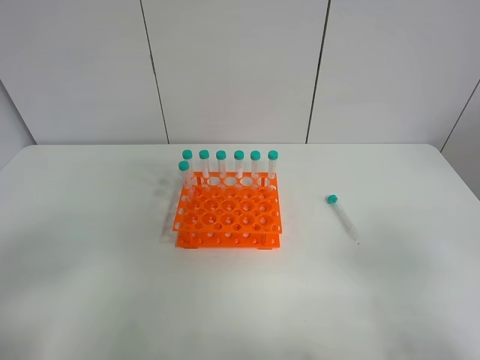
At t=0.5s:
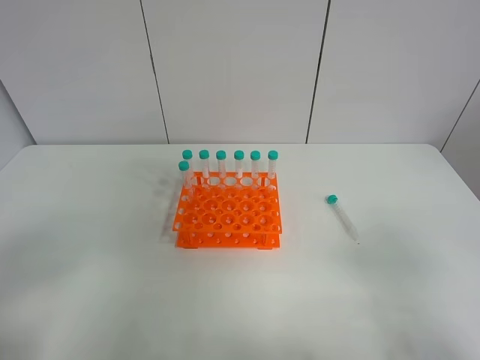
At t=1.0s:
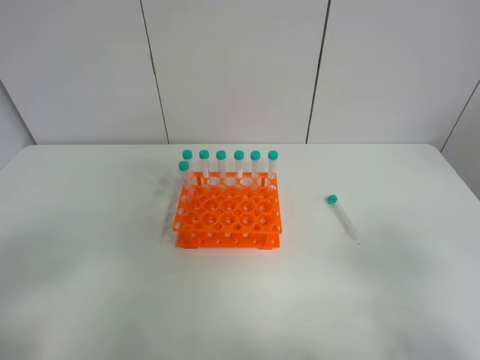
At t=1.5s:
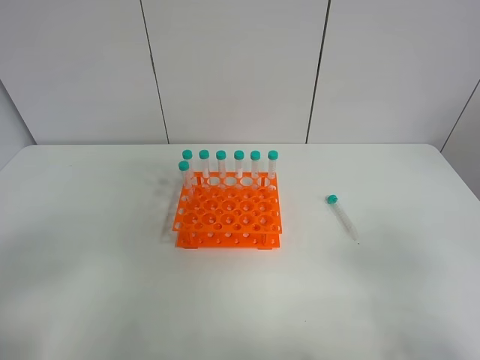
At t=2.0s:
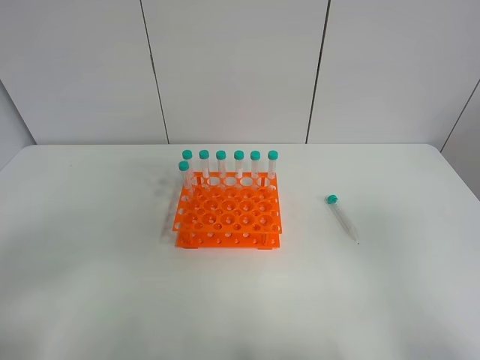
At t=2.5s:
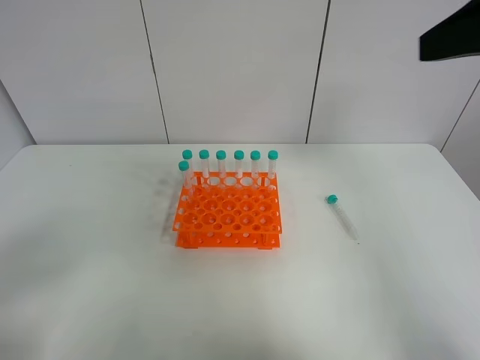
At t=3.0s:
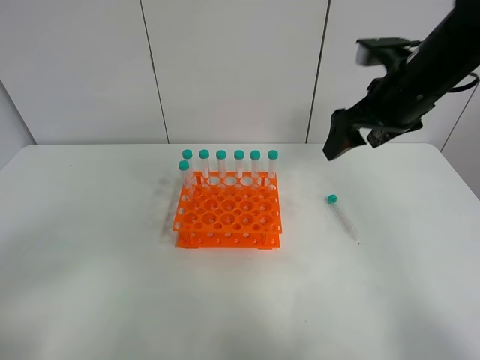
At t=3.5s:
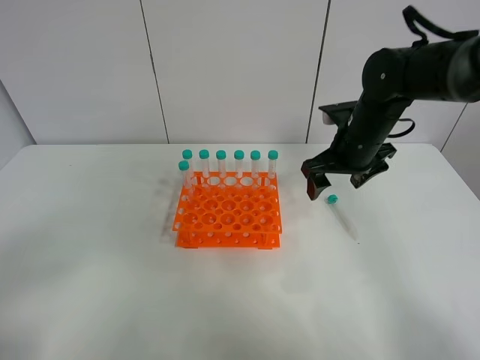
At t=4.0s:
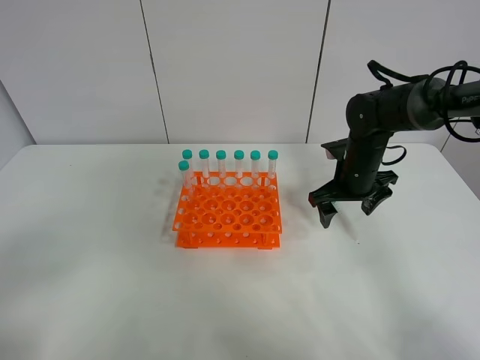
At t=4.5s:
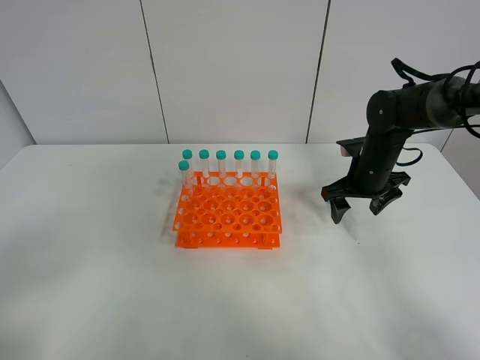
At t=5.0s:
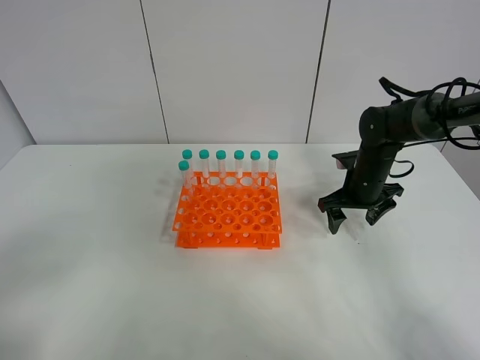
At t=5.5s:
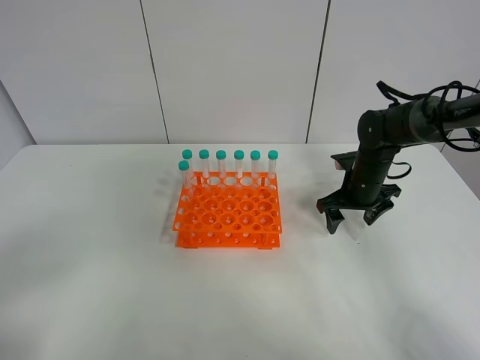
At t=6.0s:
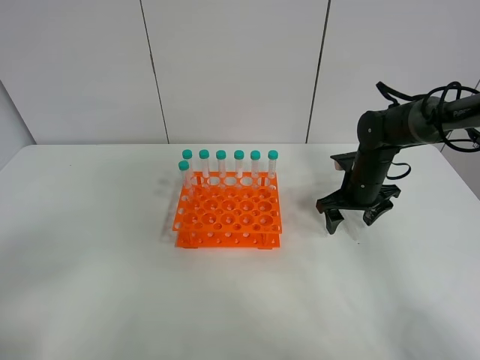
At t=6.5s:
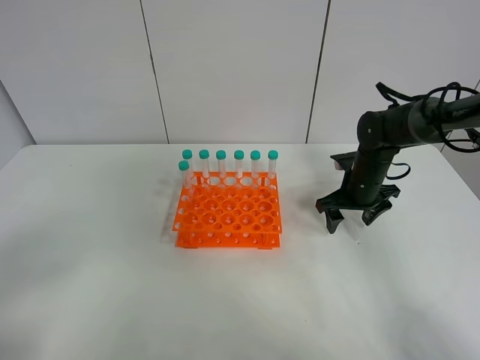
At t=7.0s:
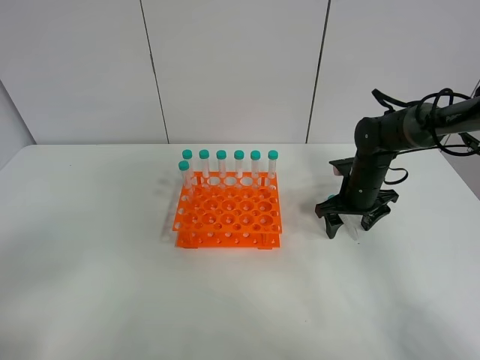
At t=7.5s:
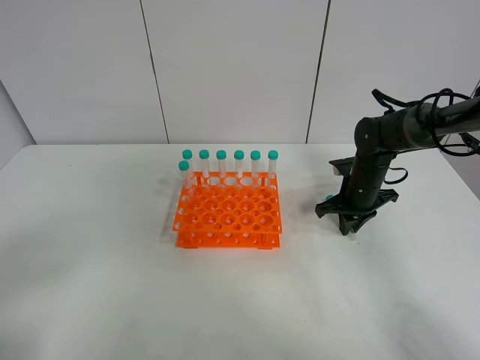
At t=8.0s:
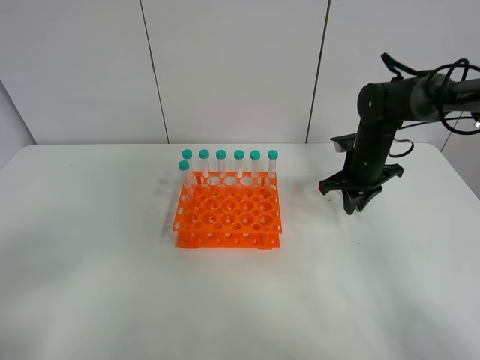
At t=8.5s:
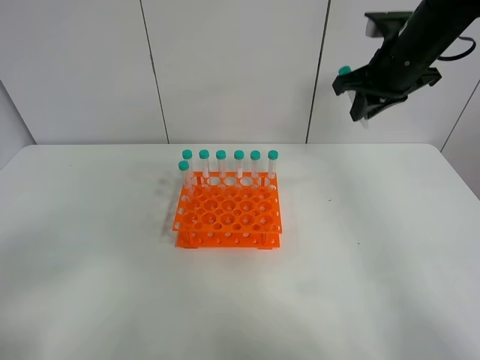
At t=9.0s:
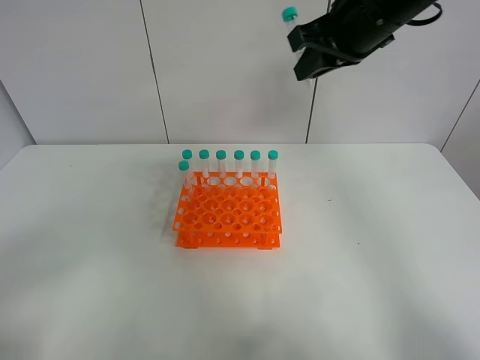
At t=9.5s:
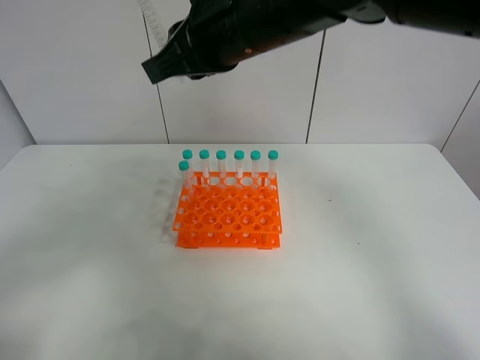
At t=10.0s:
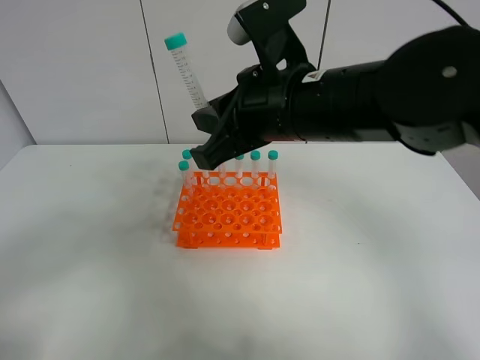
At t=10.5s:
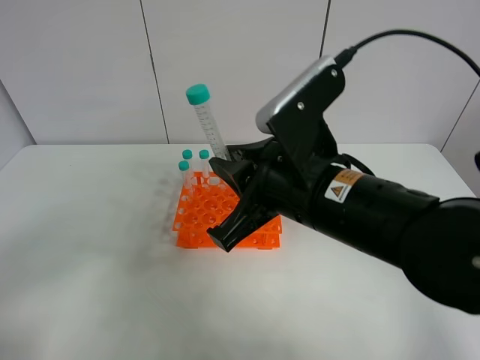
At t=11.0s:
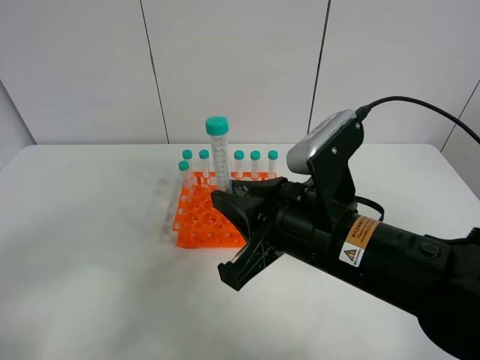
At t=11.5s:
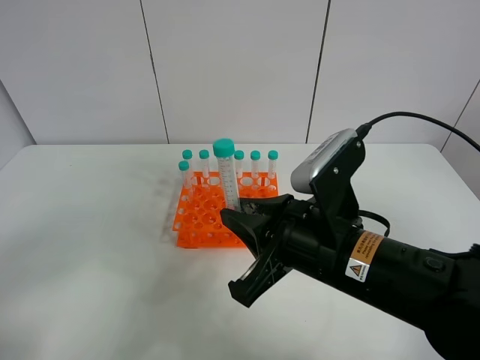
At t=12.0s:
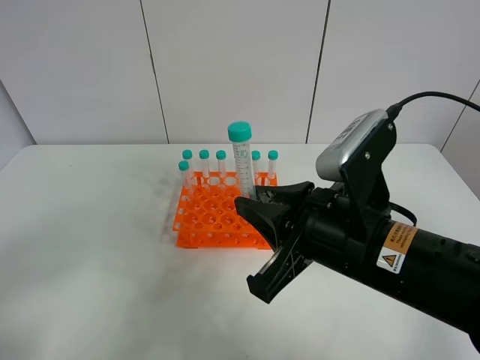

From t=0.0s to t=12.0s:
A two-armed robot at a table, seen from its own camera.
Task of the whole recording: Put the test tube on the table back onto the test tube rack.
Step, from t=0.0s to t=8.0s: Pick up the test tube with the right gripper.
From t=2.0s to t=4.0s: The right gripper shifts approximately 40 cm forward and downward.
From t=4.0s to t=6.0s: The grippers stay close to where they were, moving slightly.
From t=6.0s to t=8.0s: The right gripper shifts about 5 cm upward, and closes.
From t=8.0s to t=10.0s: The right gripper is displaced backward, to the left and upward by approximately 30 cm.
From t=10.0s to t=12.0s: The right gripper shifts approximately 10 cm backward and downward.

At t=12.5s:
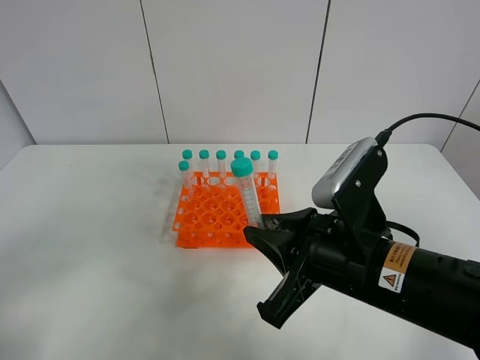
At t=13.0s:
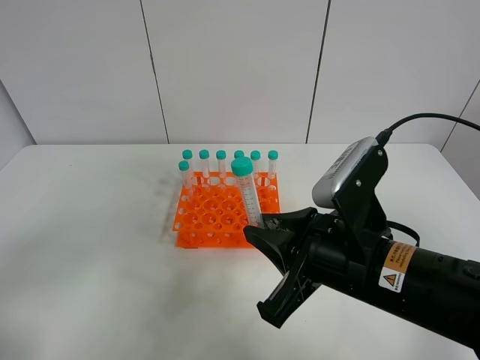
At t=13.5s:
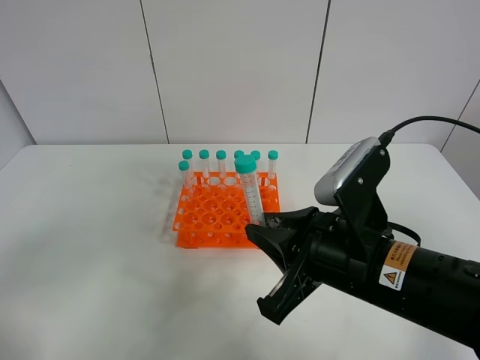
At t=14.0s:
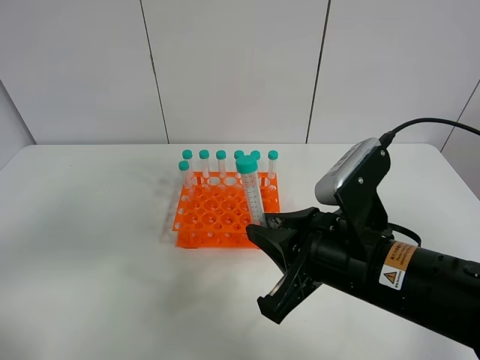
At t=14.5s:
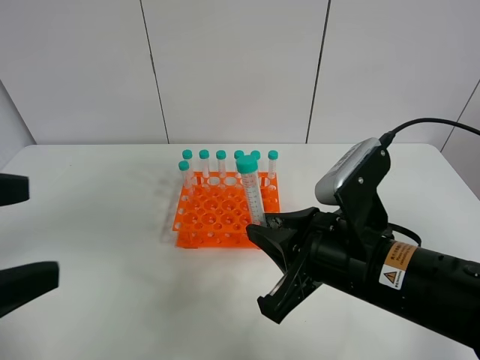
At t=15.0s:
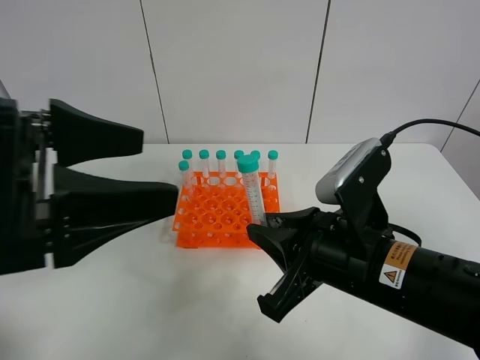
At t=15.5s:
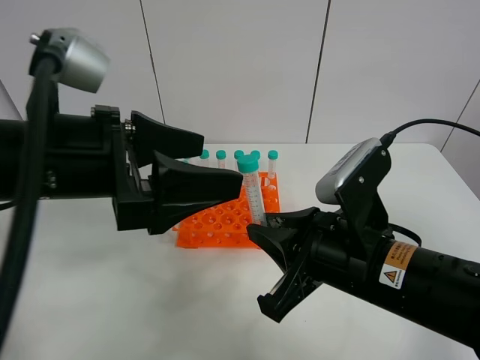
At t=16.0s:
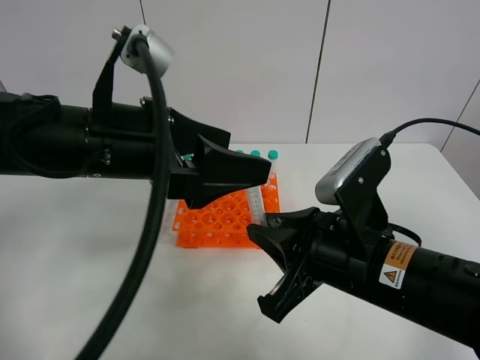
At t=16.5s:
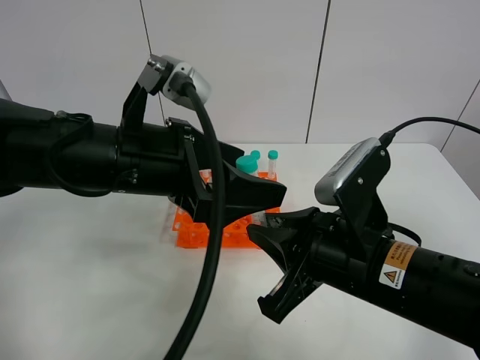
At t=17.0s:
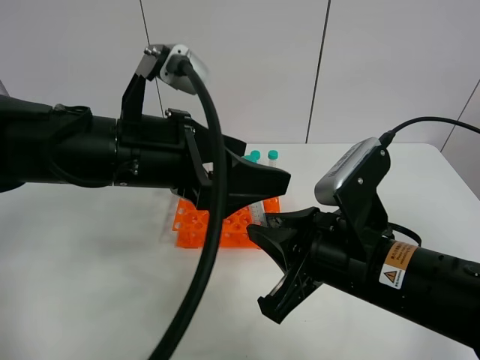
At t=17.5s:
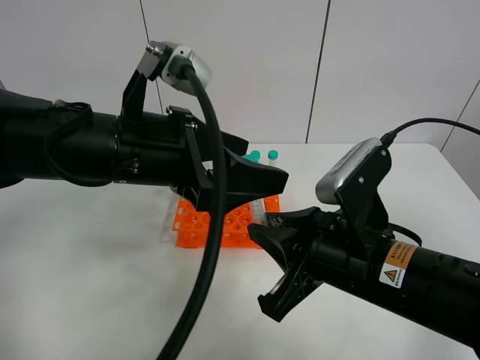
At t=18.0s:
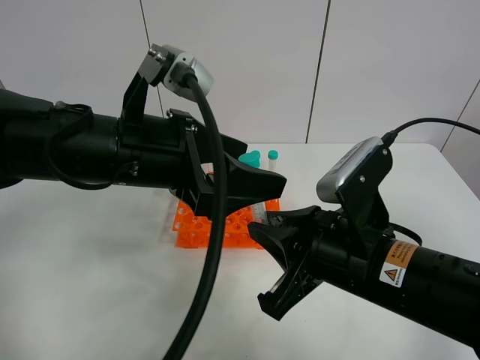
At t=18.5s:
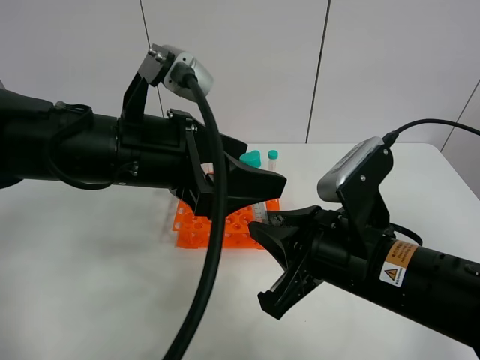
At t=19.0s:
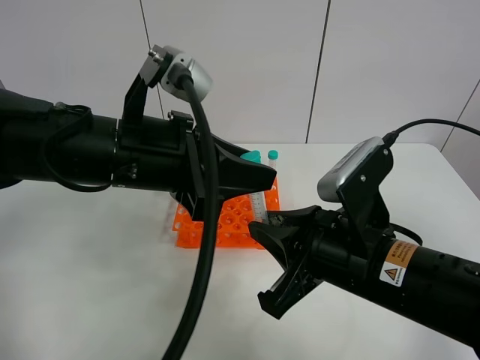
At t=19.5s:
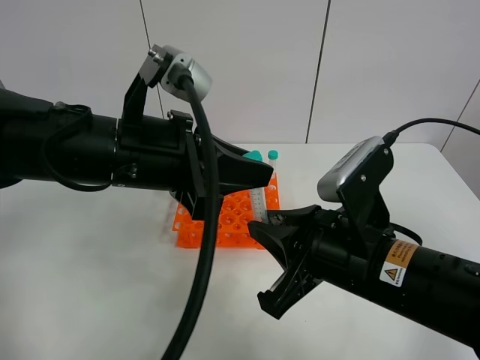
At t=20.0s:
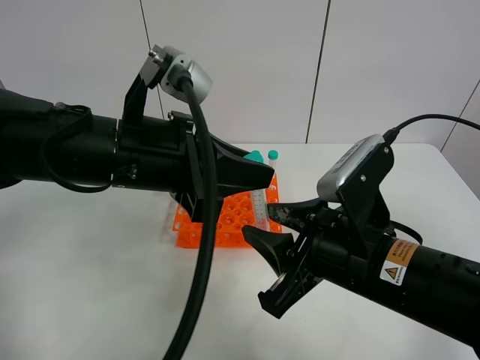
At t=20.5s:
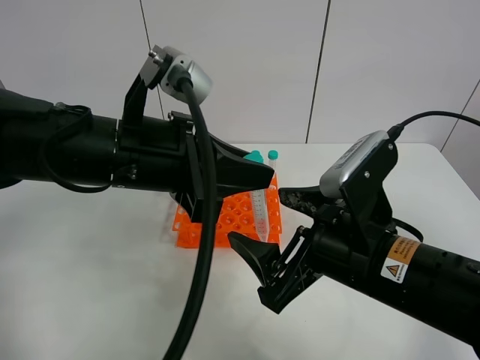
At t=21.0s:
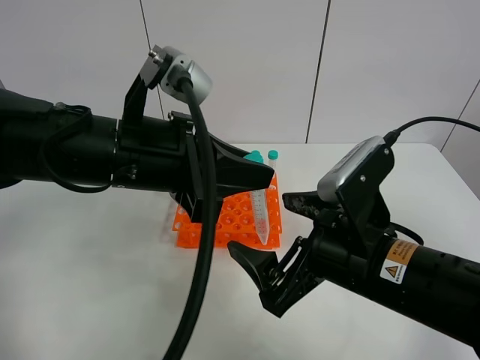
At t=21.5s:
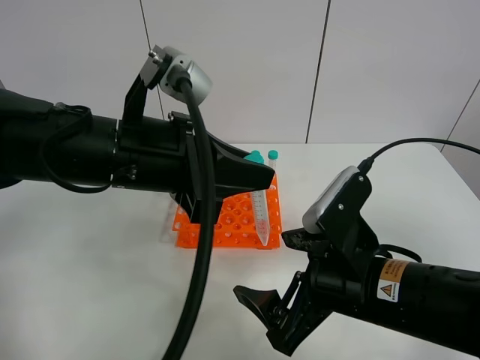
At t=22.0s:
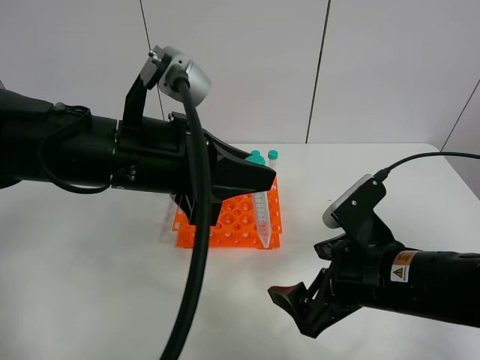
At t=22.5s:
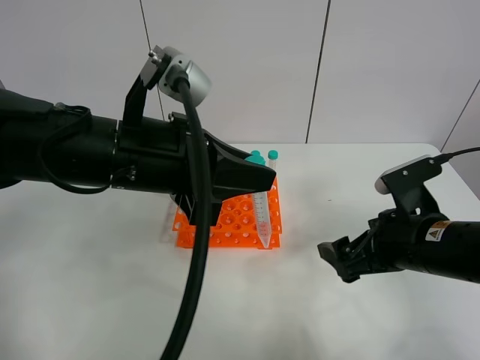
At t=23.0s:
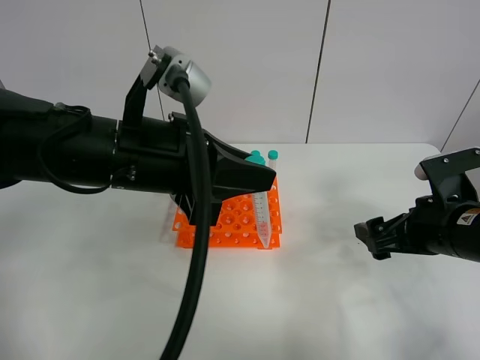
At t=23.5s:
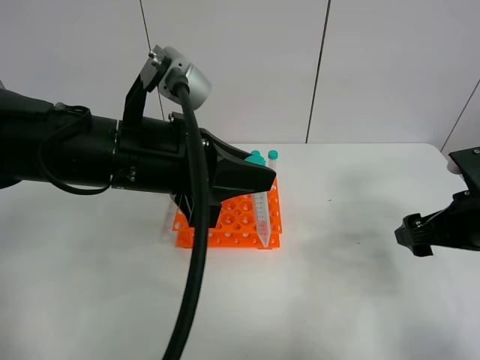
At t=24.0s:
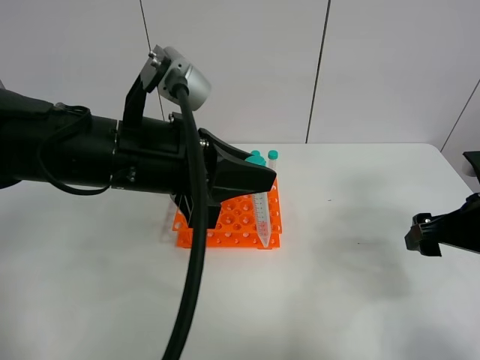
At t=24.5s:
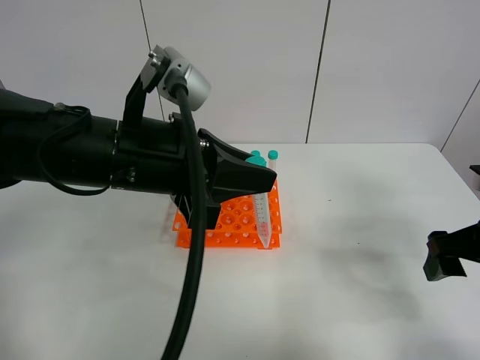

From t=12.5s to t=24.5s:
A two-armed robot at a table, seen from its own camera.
Task of the whole recording: Put the test tube on the table back onto the test tube rack.
Step, from t=12.5s to t=22.0s: Move the test tube from the right gripper to the left gripper.
From t=12.5s to t=14.5s: The left gripper heads forward, to the right and upward, covering approximately 10 cm.
From t=14.5s to t=16.5s: The left gripper moves forward and to the right, approximately 20 cm.
From t=16.5s to t=18.5s: The two grippers keep their place.
From t=18.5s to t=20.5s: The right gripper opens its fingers; the left gripper closes its fingers.
From t=20.5s to t=22.5s: The right gripper moves to the right, approximately 10 cm.
From t=22.5s to t=24.5s: The right gripper travels to the right by about 10 cm.

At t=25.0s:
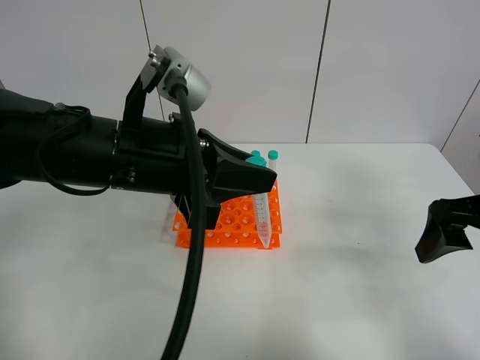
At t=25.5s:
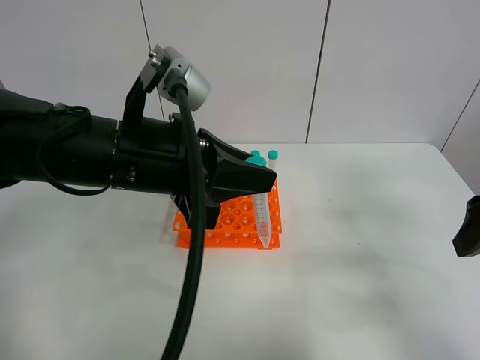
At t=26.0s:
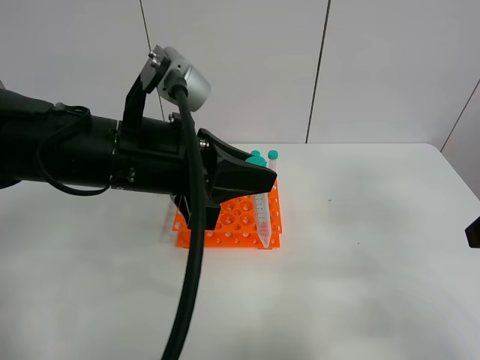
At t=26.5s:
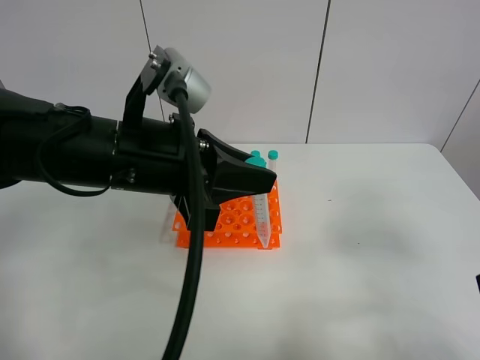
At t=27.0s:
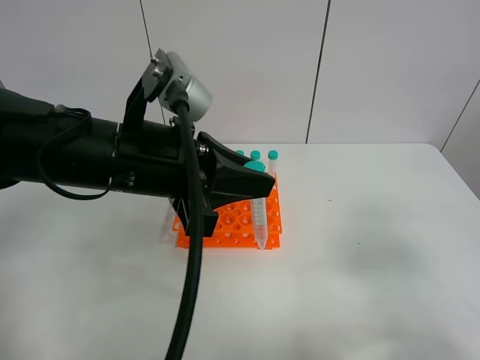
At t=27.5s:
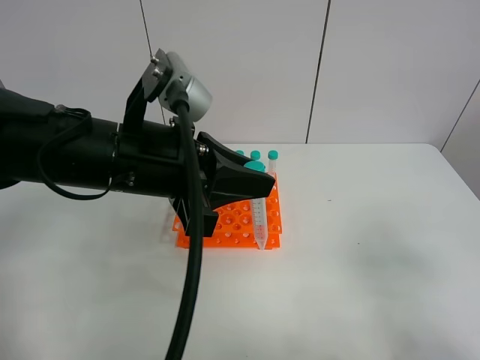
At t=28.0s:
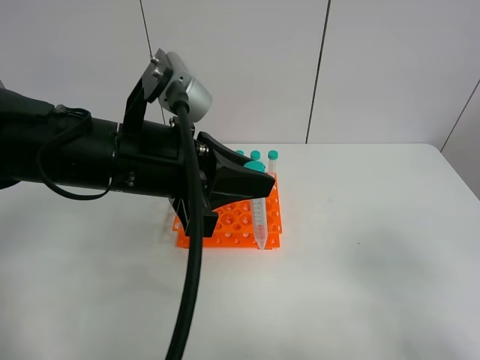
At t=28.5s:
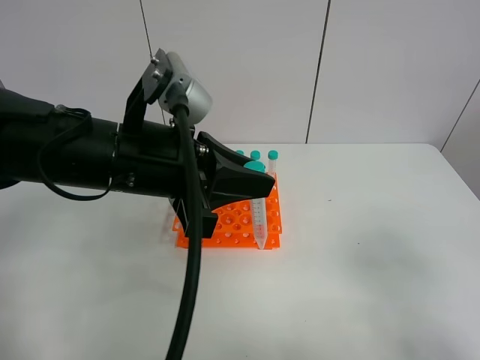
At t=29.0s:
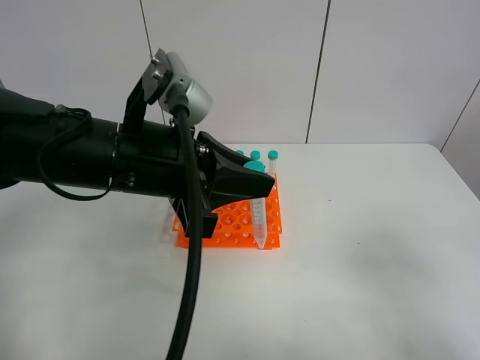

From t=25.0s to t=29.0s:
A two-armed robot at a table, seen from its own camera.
Task of the whole recording: Put the test tube on the table back onto the test tube rack.
From t=25.0s to t=27.0s: The right gripper moves backward, approximately 15 cm.
